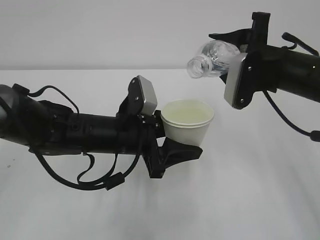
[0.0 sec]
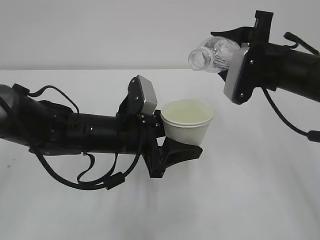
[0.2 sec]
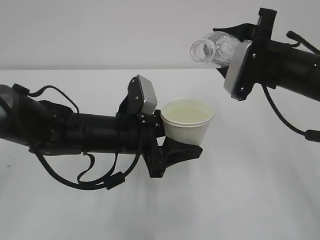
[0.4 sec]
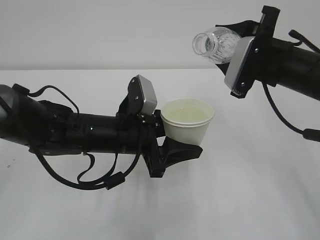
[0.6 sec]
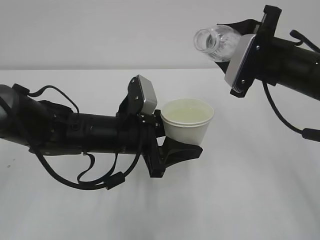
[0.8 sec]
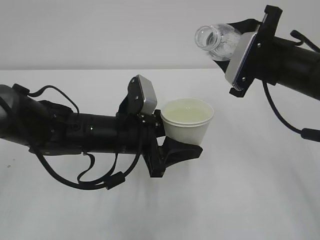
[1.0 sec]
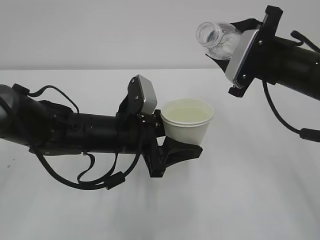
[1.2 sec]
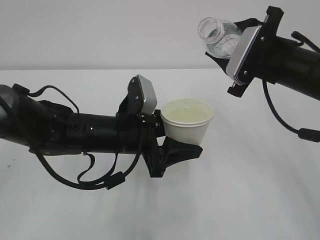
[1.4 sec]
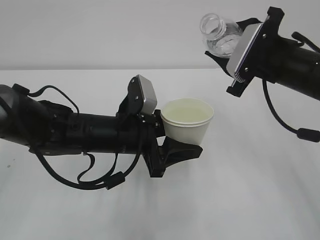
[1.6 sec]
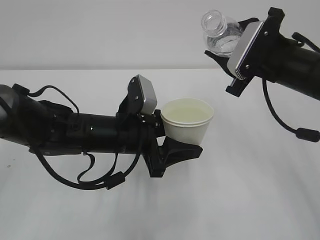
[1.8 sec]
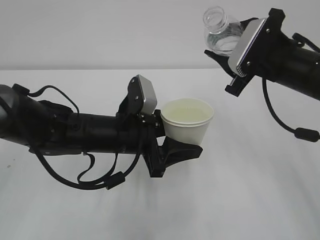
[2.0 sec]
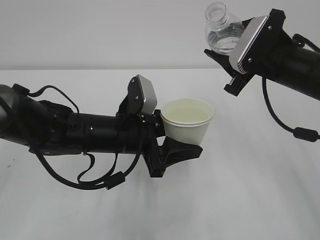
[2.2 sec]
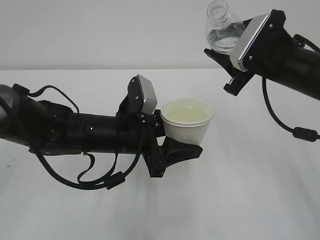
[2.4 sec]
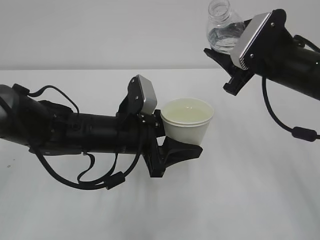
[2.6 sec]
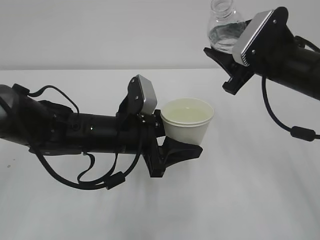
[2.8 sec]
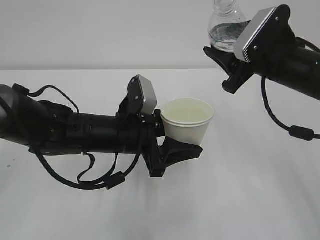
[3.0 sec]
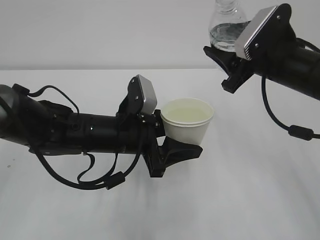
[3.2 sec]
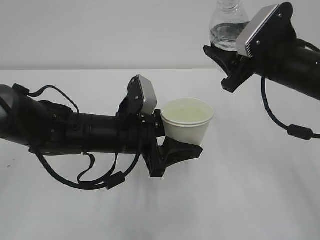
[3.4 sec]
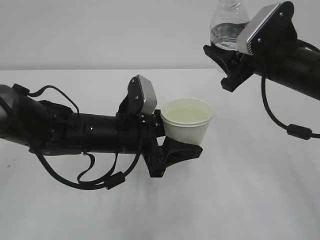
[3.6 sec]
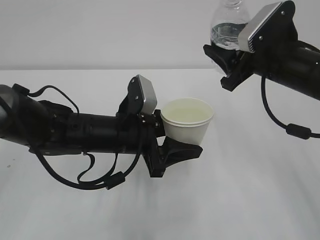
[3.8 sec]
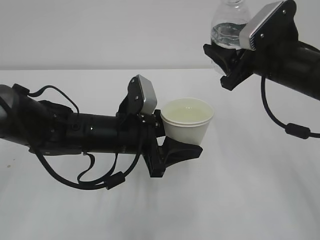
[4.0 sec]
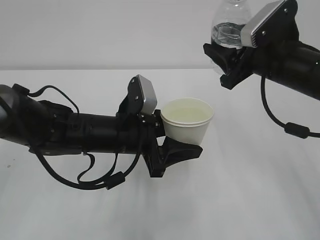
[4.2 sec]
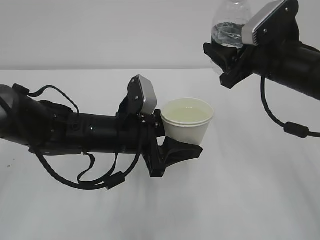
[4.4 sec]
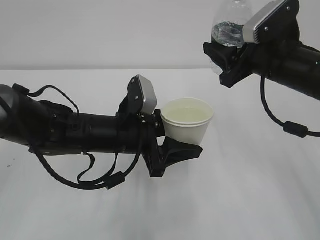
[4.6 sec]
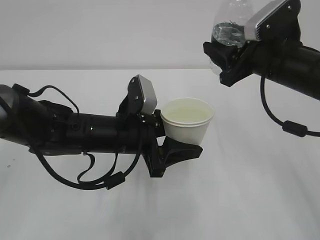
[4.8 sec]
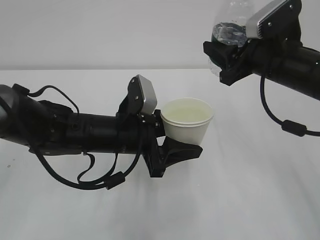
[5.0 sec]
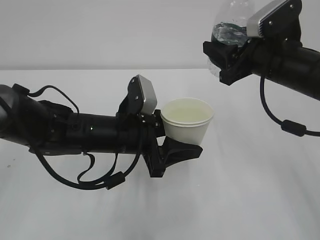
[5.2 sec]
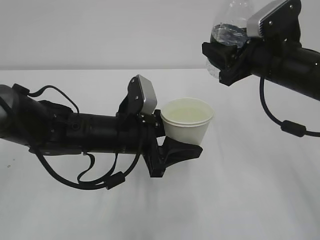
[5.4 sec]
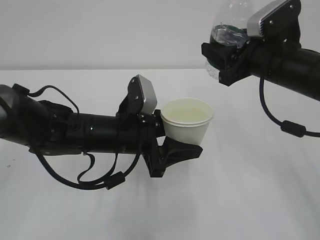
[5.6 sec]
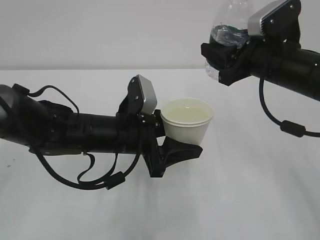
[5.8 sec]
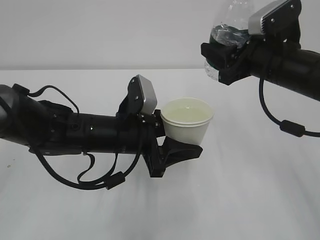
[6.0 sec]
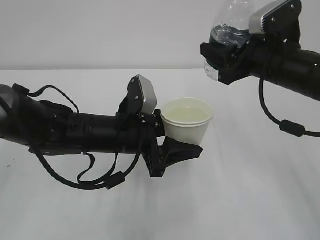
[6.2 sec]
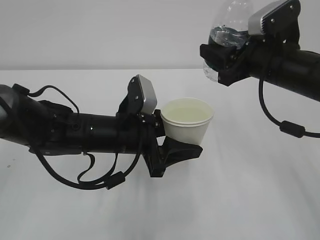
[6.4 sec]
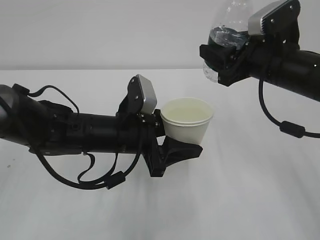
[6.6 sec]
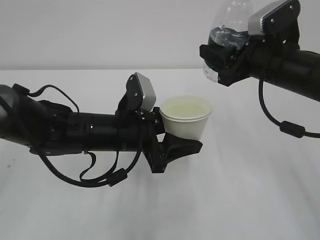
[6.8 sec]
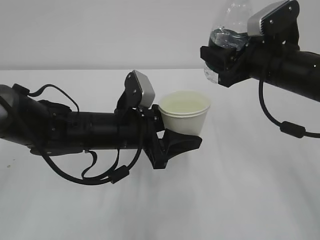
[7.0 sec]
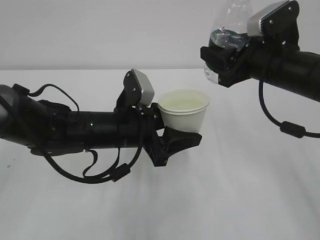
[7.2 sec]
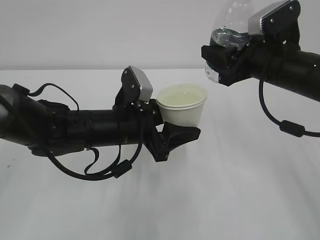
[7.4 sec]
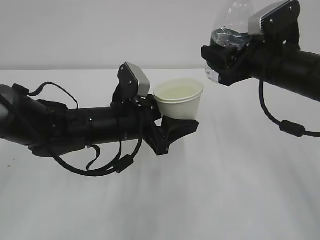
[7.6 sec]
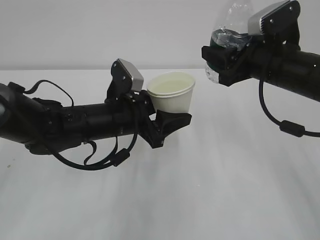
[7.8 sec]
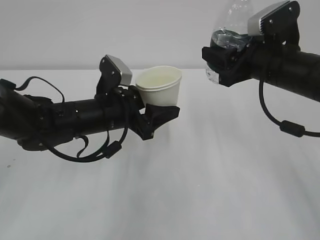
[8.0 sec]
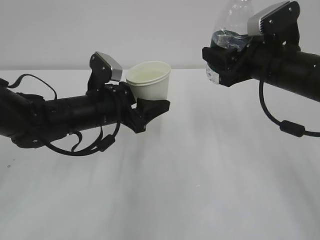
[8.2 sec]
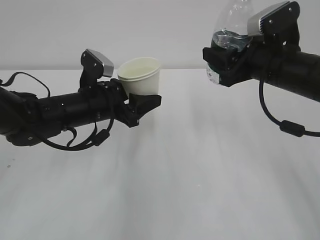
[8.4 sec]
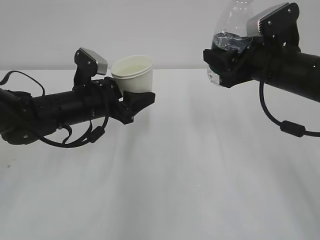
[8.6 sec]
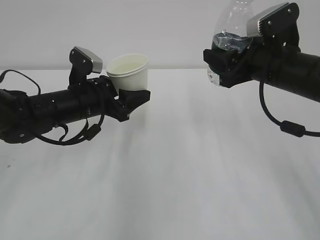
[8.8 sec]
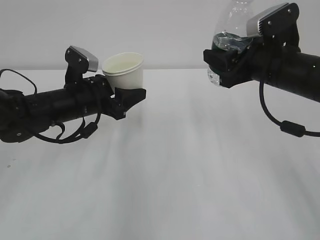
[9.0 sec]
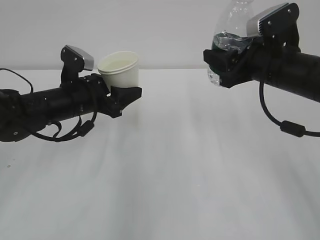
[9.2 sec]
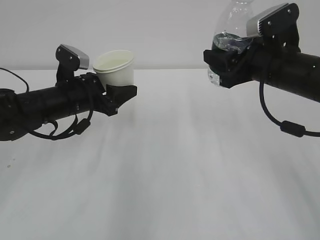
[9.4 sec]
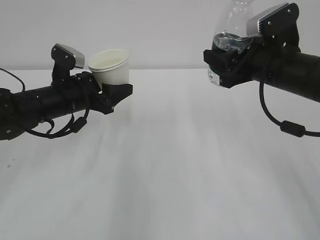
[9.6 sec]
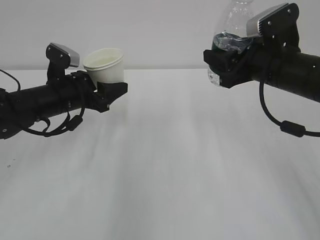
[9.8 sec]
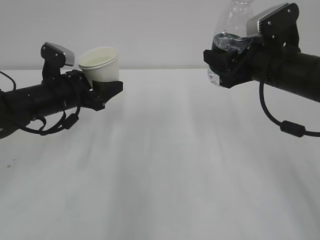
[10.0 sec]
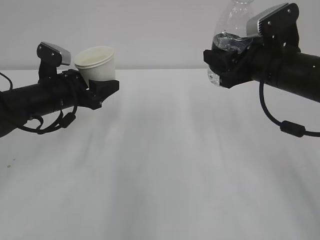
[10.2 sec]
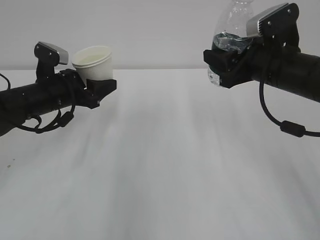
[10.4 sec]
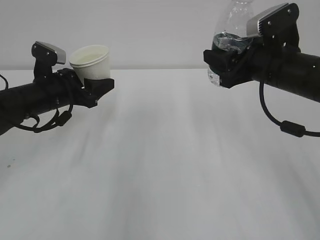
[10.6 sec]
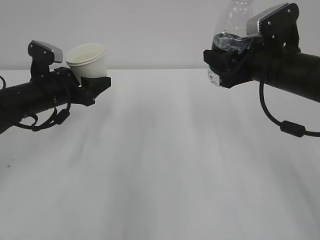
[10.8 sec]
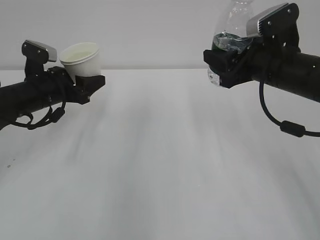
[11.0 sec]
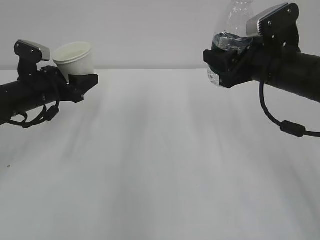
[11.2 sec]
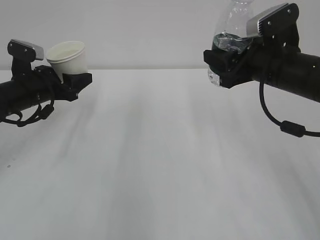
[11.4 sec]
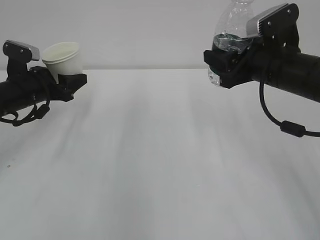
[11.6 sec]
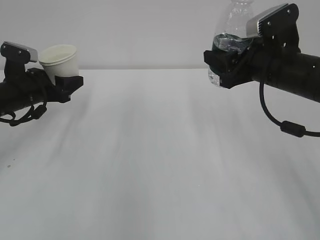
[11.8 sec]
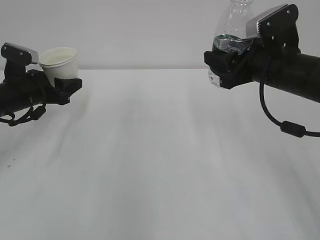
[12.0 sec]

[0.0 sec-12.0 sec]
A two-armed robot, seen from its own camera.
1.6 sec to 3.0 sec: There are only small adjustments of the grippers.
3.0 sec to 4.4 sec: The grippers make only small movements.
4.4 sec to 7.6 sec: The grippers move only a little.
7.6 sec to 9.0 sec: The left gripper heads to the left and forward, covering some 10 cm.
9.0 sec to 10.4 sec: The left gripper is displaced to the left by about 5 cm.
10.4 sec to 12.0 sec: The left gripper moves to the left, roughly 5 cm.

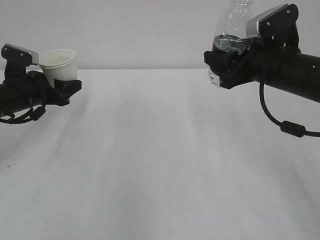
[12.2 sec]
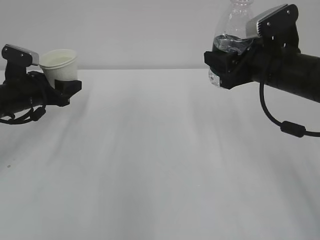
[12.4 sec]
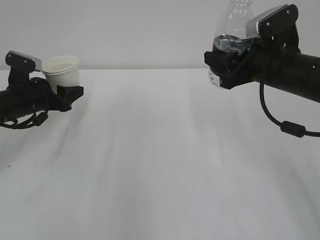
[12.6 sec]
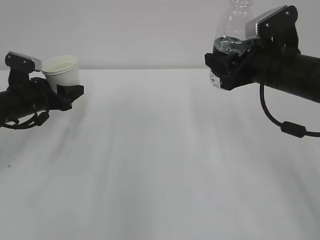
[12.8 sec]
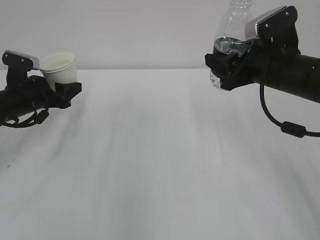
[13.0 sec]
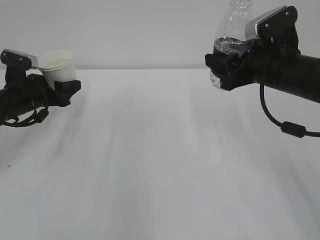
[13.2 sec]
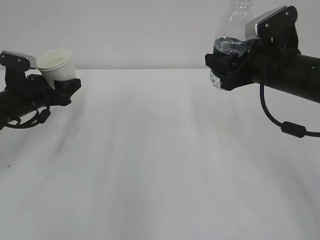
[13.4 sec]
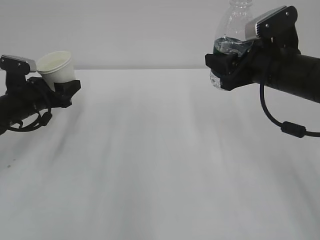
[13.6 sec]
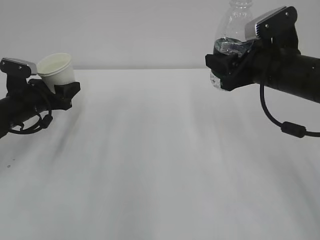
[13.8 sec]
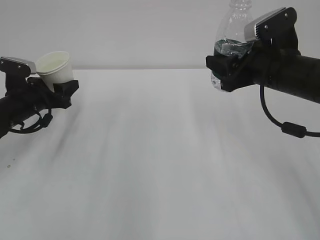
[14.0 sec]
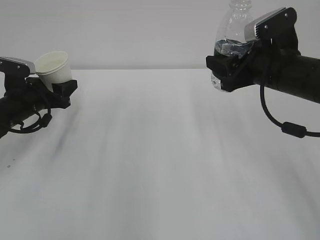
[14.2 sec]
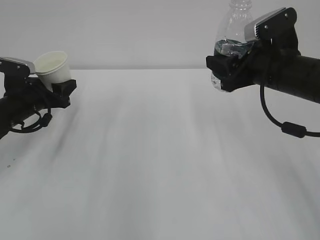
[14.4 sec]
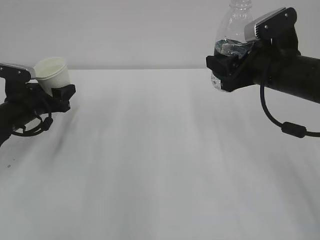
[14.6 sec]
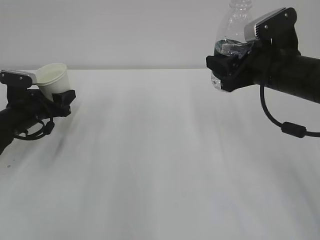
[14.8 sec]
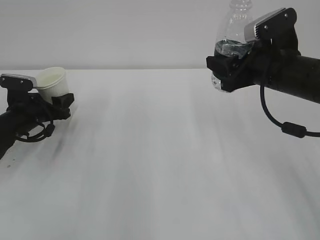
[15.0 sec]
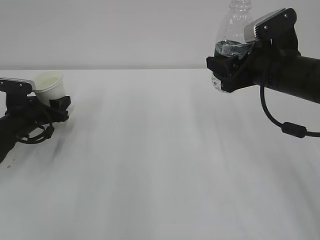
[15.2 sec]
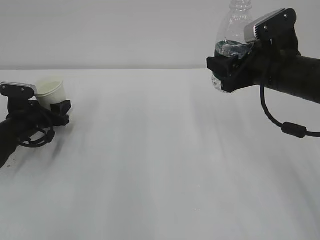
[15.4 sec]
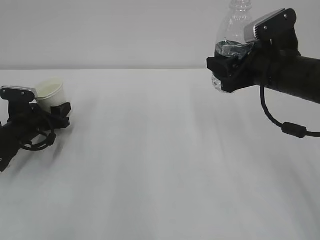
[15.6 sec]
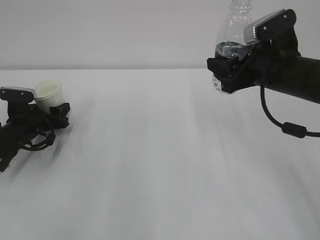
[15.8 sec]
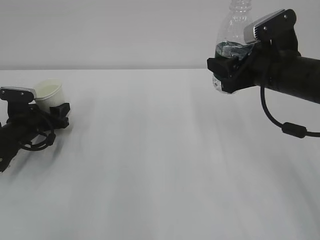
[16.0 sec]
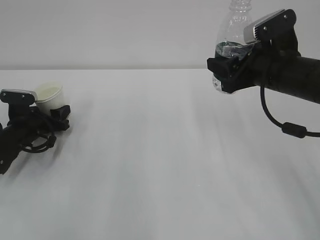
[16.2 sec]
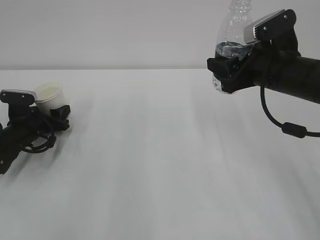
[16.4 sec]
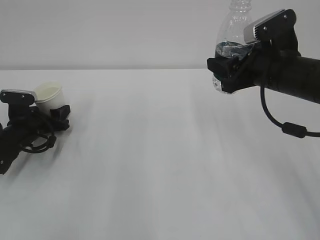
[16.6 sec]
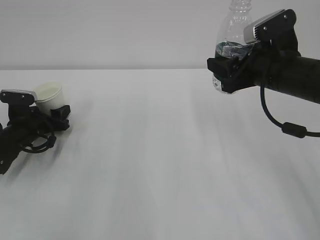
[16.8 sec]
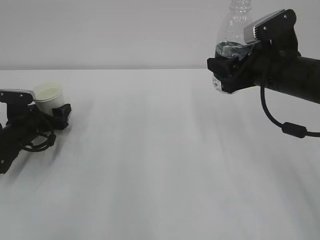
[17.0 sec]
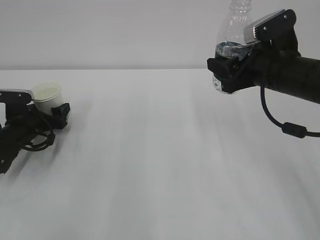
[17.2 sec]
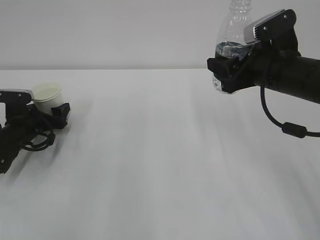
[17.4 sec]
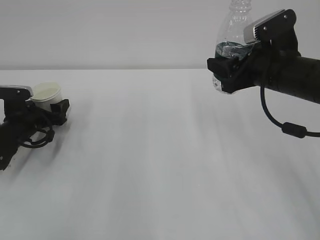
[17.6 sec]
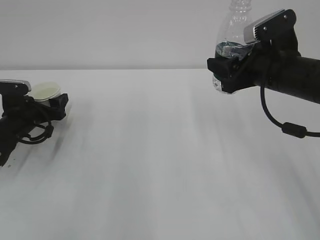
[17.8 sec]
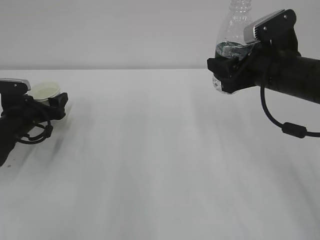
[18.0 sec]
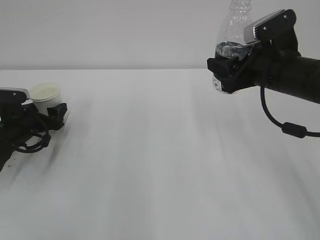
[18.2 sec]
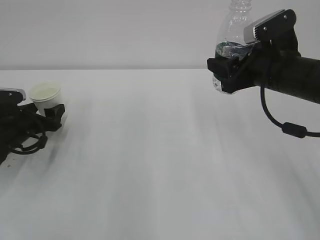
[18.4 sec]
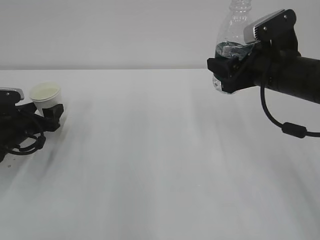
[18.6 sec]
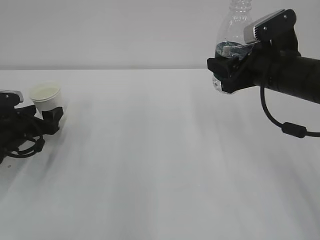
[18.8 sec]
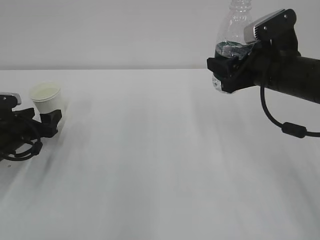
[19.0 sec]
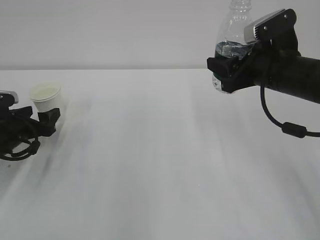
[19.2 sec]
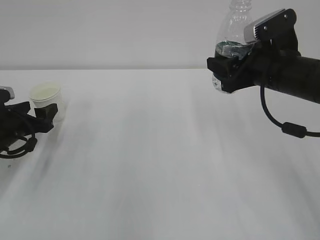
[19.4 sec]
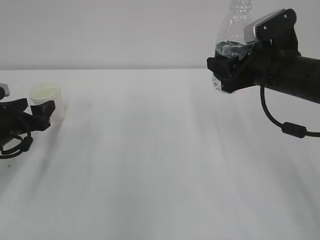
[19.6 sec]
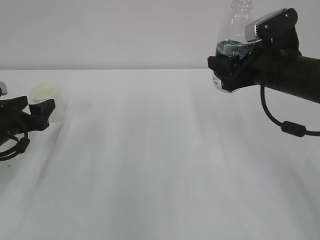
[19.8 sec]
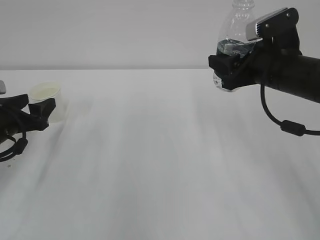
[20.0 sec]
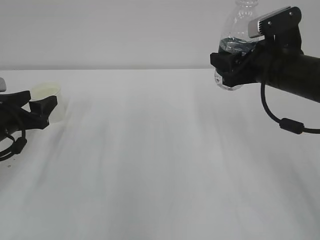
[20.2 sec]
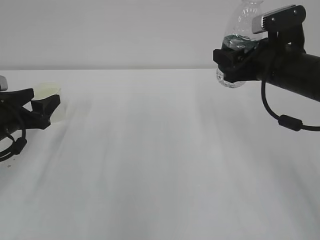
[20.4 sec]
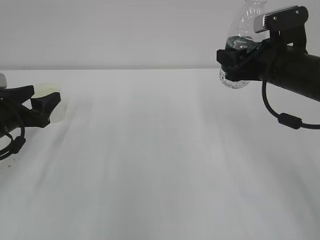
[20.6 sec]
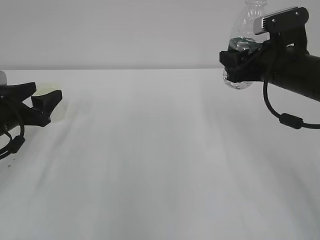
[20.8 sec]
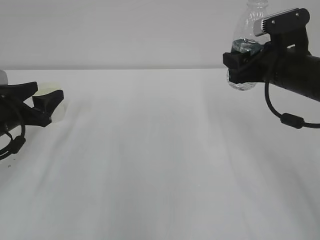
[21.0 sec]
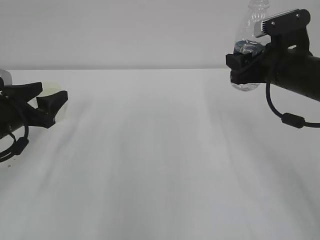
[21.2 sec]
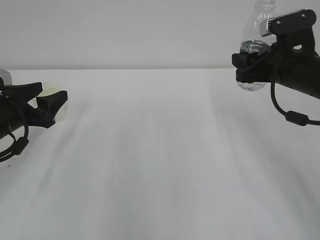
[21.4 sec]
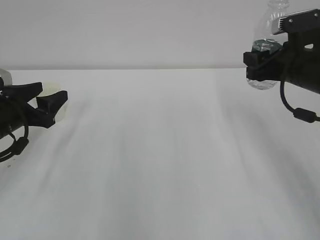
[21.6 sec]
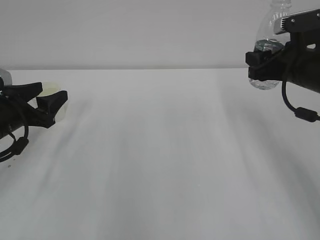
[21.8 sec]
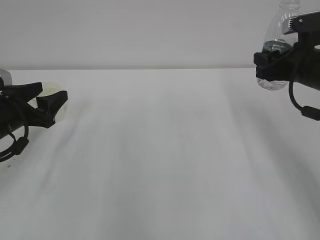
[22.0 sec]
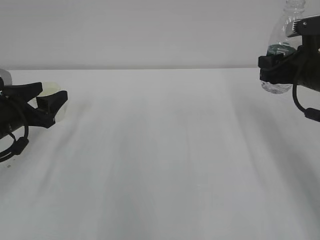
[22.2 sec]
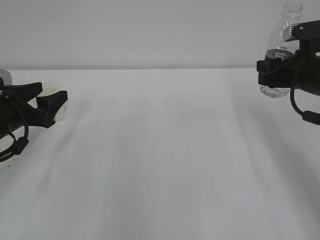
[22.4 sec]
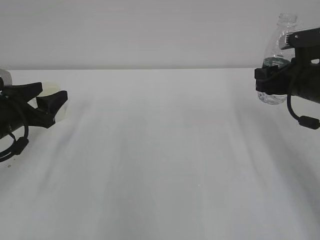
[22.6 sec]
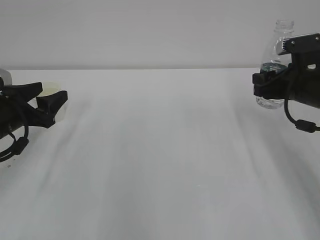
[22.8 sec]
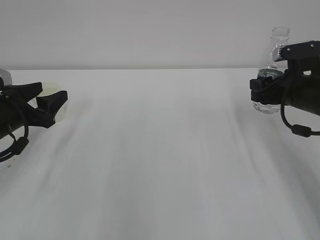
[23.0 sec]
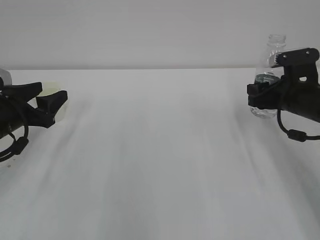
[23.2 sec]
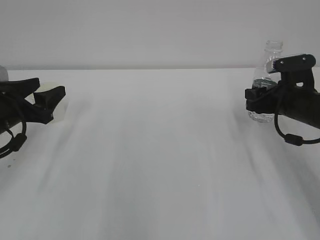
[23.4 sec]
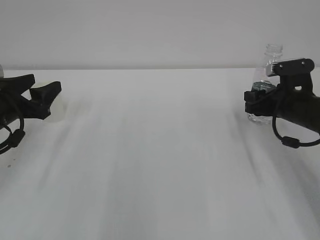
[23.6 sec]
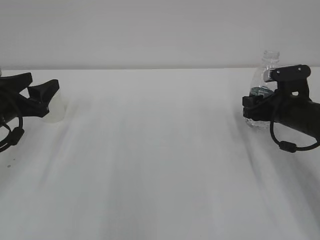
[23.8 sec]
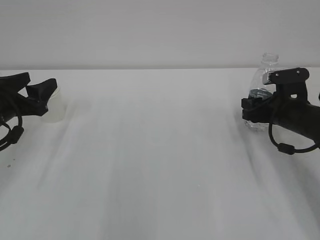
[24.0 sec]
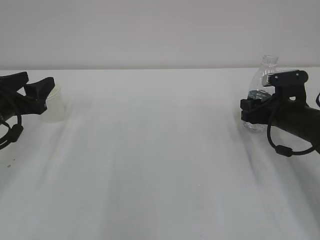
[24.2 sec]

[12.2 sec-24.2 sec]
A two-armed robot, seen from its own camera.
12.2 sec to 13.8 sec: There are only small adjustments of the grippers.
13.8 sec to 15.2 sec: The grippers move only a little.
15.2 sec to 16.6 sec: The grippers make only small movements.
16.6 sec to 18.2 sec: The left gripper opens.
18.2 sec to 19.8 sec: The left gripper moves backward and upward, roughly 10 cm.
19.8 sec to 21.2 sec: The grippers make only small movements.
21.2 sec to 22.6 sec: The right gripper heads to the right, covering approximately 5 cm.
22.6 sec to 24.2 sec: The right gripper is displaced downward by approximately 10 cm.
